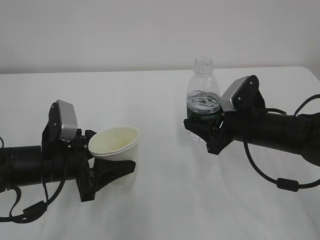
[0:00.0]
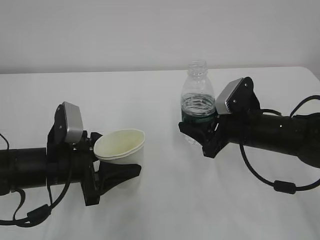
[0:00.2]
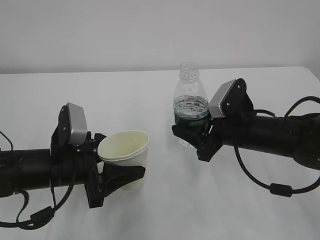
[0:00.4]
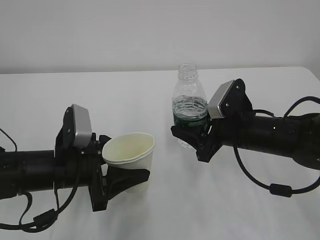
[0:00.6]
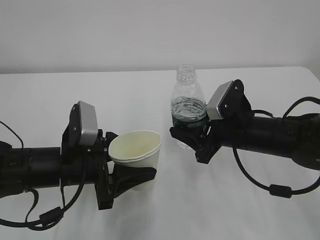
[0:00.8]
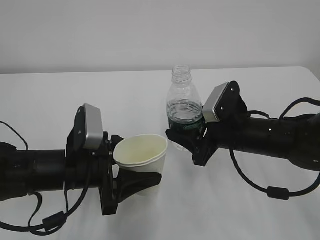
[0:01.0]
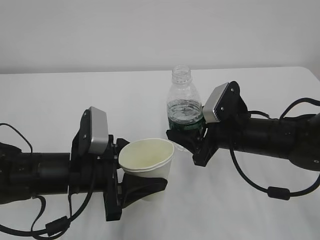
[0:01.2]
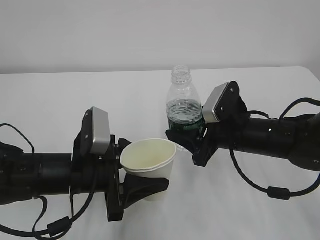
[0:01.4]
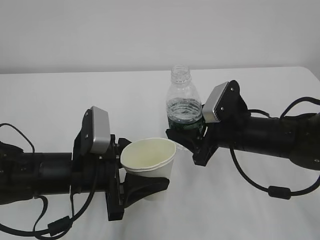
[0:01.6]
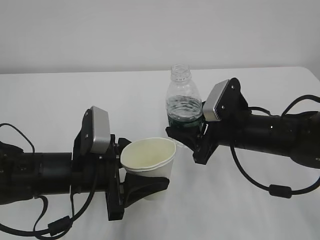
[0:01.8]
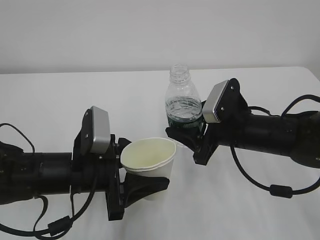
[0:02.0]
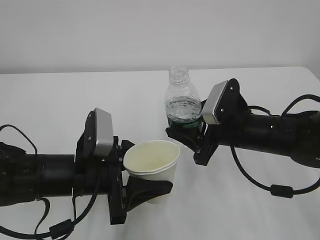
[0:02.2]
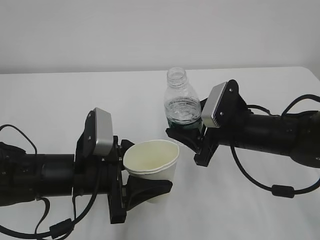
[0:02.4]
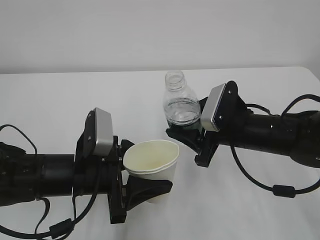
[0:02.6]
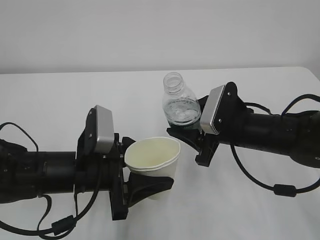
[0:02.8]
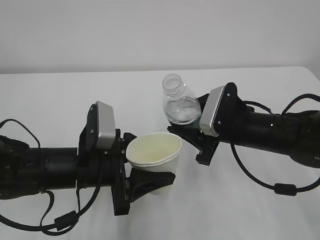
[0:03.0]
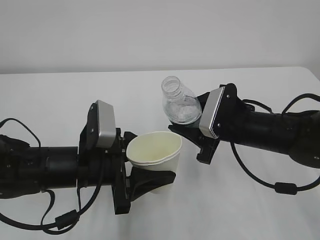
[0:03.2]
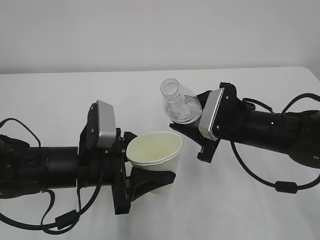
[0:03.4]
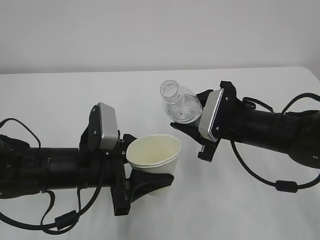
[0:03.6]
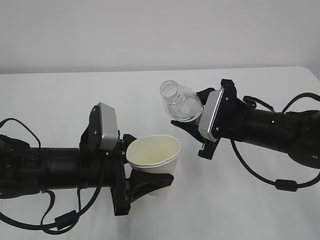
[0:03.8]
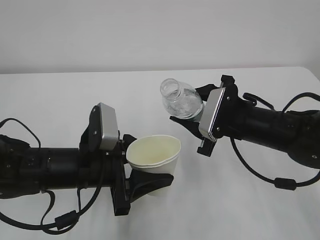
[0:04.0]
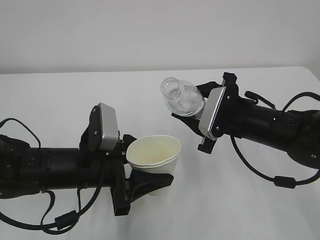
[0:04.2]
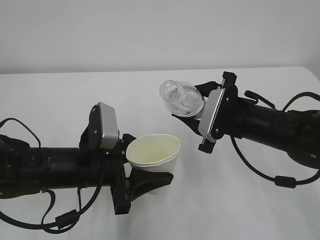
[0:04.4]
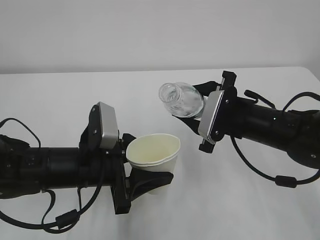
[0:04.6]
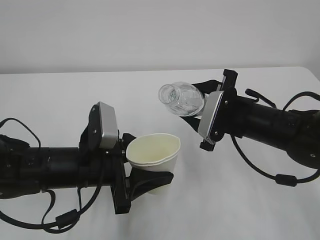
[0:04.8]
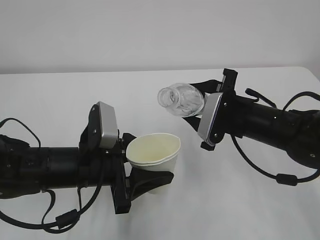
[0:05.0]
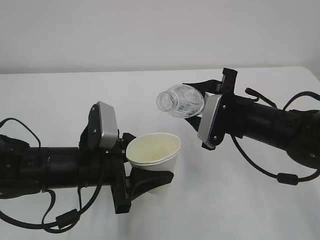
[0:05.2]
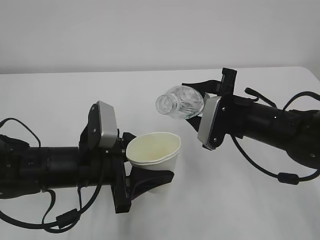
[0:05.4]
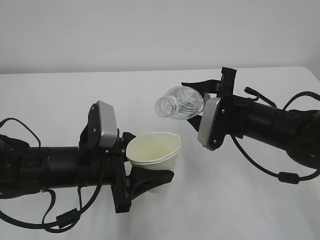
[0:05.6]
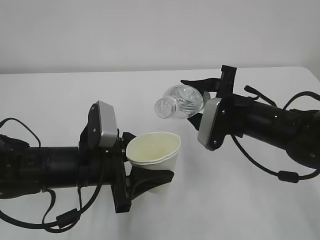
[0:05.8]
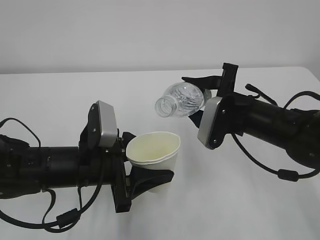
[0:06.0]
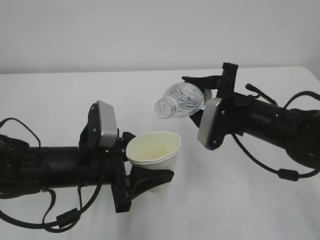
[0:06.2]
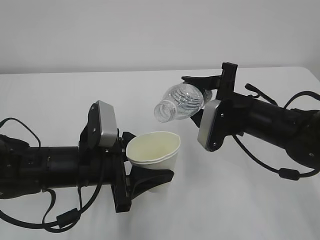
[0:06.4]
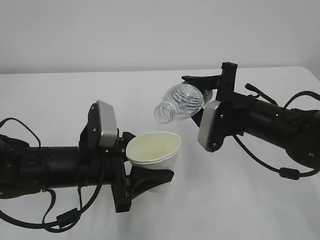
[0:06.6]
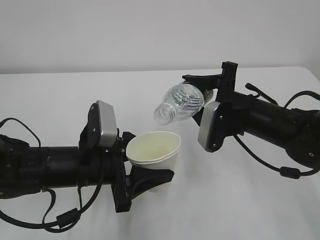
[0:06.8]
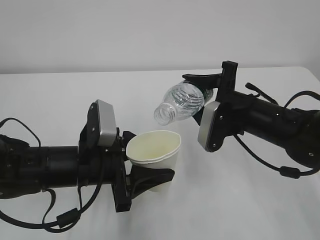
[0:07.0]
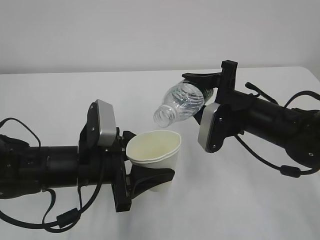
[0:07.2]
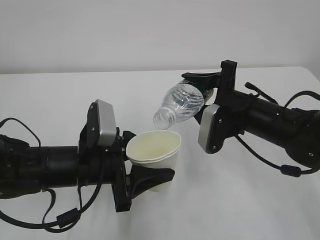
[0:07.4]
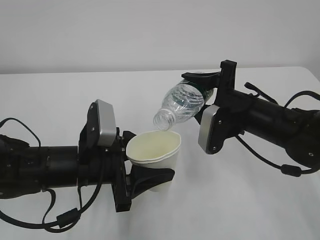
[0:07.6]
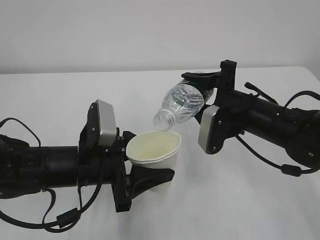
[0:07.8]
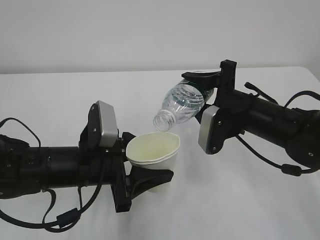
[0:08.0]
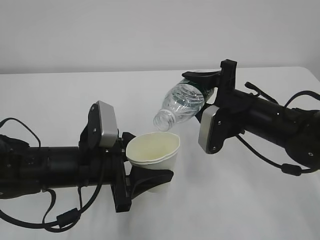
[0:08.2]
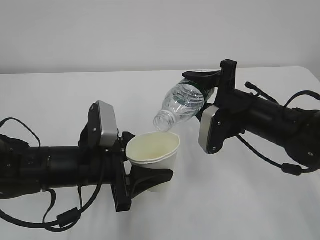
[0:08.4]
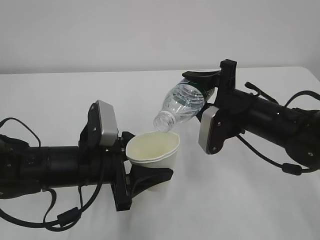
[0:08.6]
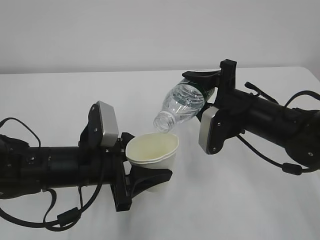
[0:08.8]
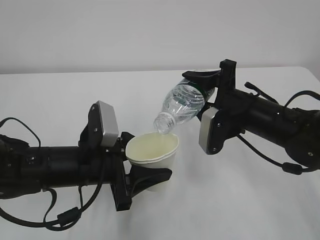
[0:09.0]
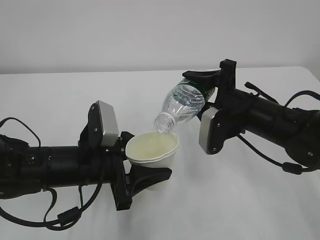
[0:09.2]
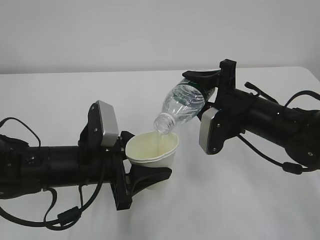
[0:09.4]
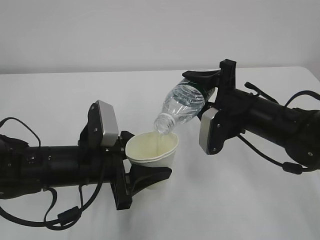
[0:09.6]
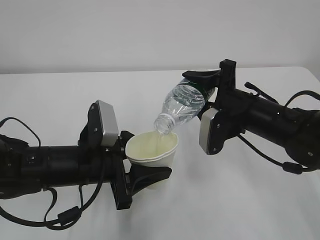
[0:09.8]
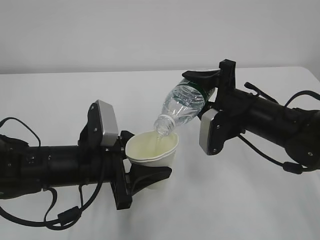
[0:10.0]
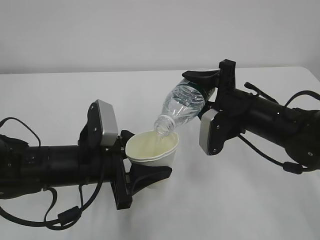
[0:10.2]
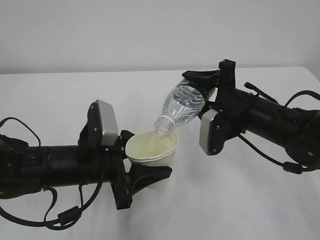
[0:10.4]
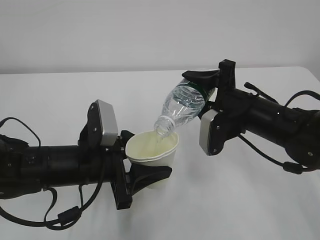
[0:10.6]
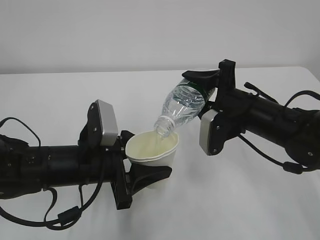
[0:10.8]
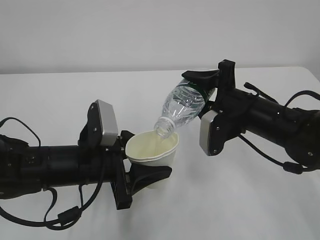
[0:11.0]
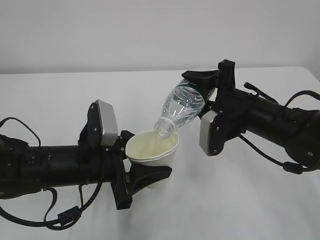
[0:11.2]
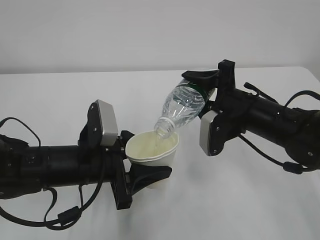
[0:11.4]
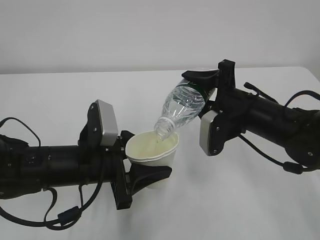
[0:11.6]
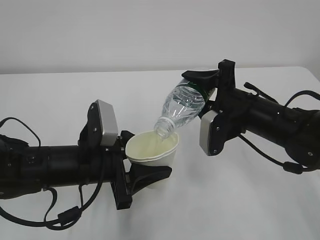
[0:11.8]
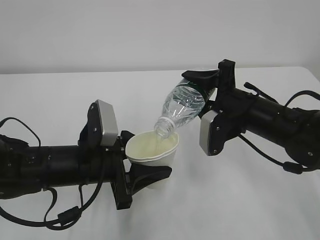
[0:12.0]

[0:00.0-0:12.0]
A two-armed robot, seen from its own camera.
0:00.0 to 0:01.6: The left gripper moves to the right, some 5 cm.
0:01.6 to 0:03.0: The grippers move only a little.
0:03.0 to 0:04.4: The grippers move only a little.
0:04.4 to 0:06.0: The grippers make only small movements.
0:06.0 to 0:09.0: There are only small adjustments of the grippers.
0:09.0 to 0:12.0: Both grippers stay put.

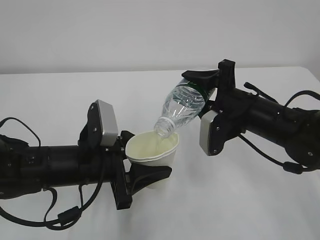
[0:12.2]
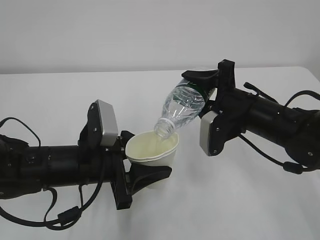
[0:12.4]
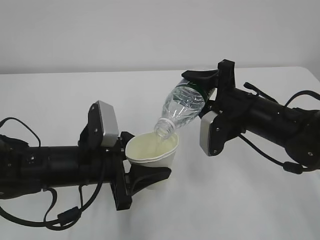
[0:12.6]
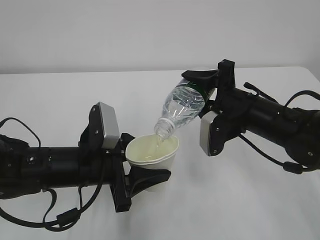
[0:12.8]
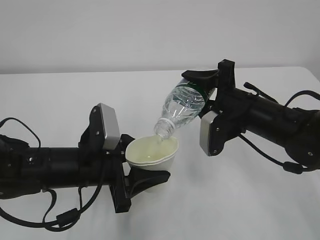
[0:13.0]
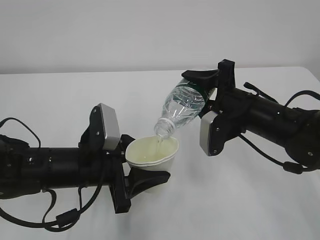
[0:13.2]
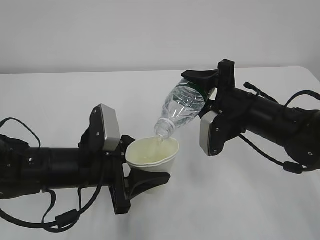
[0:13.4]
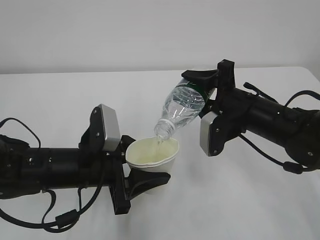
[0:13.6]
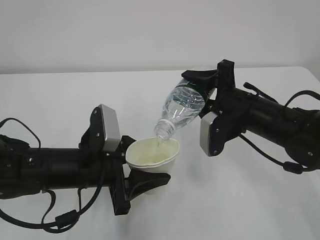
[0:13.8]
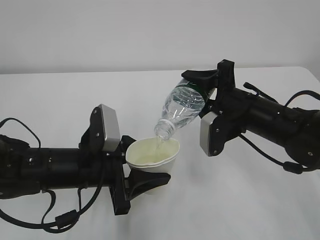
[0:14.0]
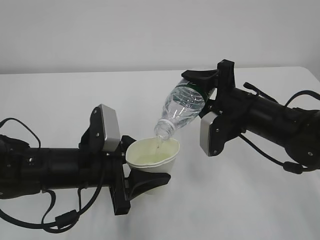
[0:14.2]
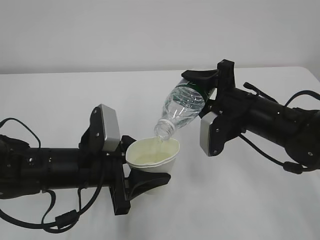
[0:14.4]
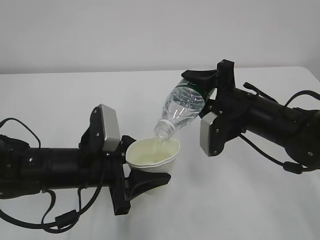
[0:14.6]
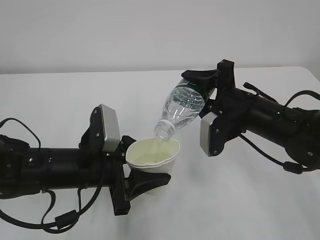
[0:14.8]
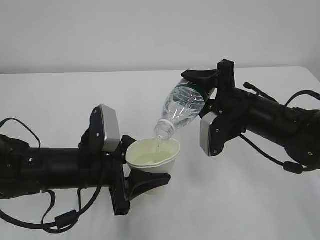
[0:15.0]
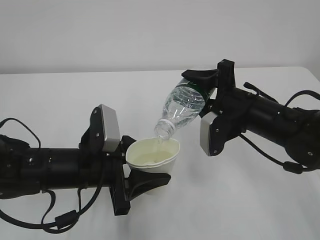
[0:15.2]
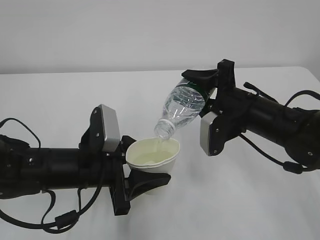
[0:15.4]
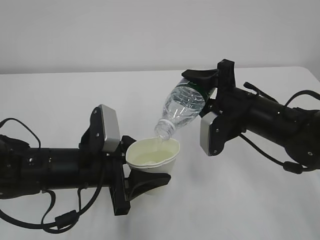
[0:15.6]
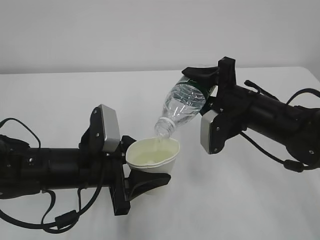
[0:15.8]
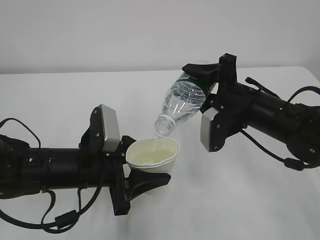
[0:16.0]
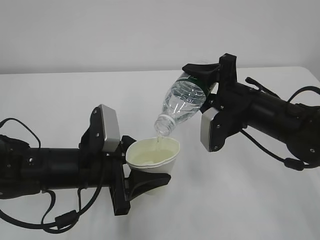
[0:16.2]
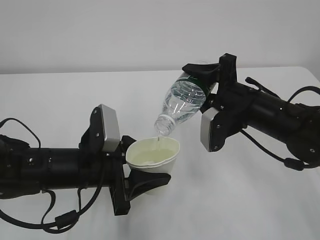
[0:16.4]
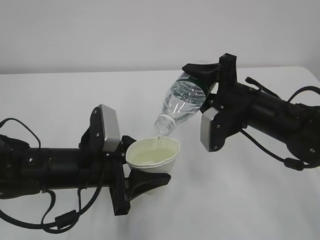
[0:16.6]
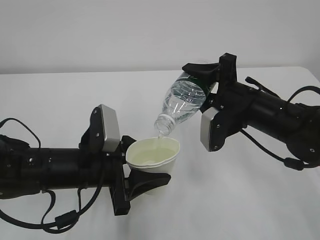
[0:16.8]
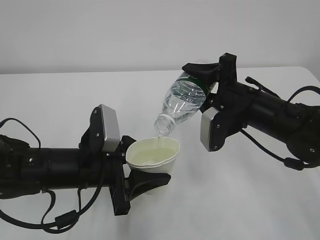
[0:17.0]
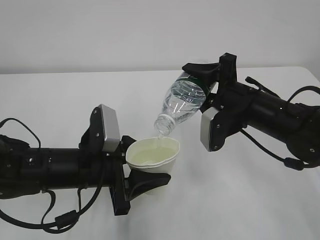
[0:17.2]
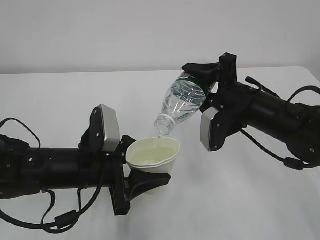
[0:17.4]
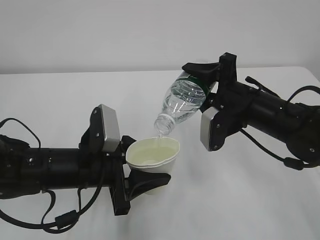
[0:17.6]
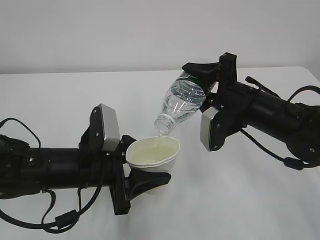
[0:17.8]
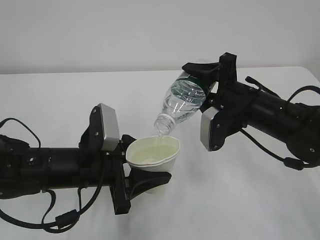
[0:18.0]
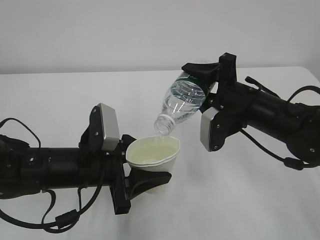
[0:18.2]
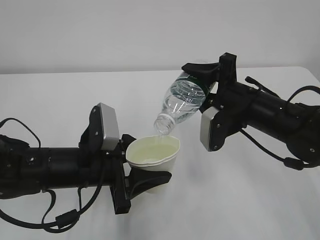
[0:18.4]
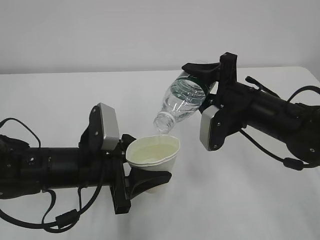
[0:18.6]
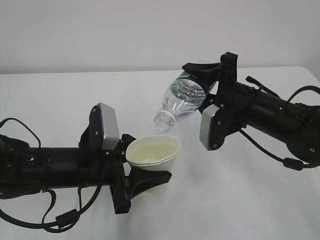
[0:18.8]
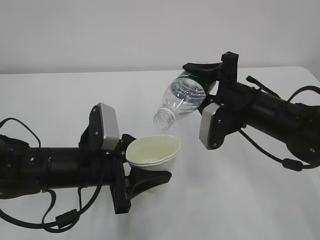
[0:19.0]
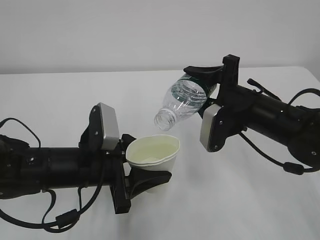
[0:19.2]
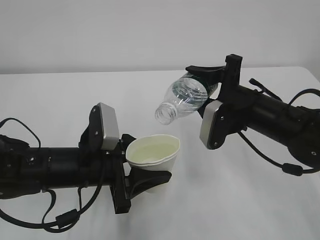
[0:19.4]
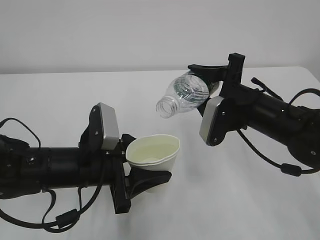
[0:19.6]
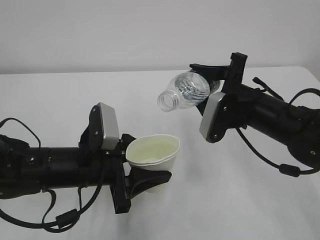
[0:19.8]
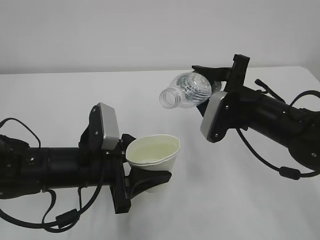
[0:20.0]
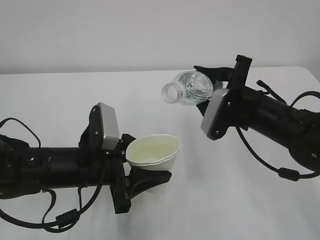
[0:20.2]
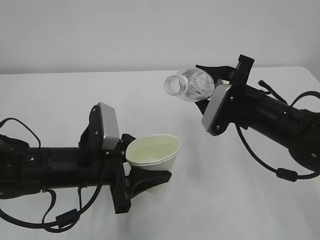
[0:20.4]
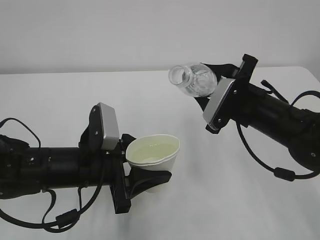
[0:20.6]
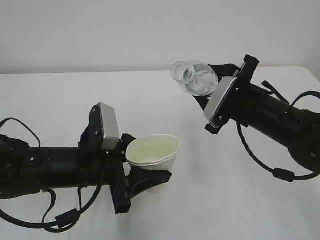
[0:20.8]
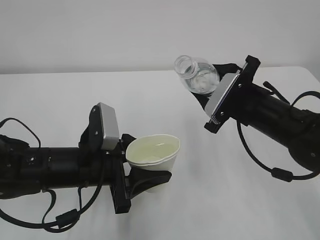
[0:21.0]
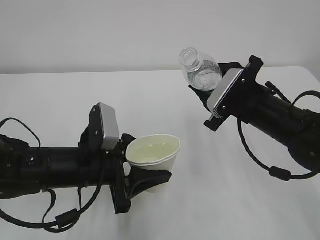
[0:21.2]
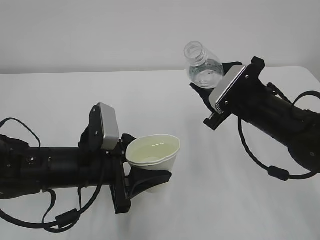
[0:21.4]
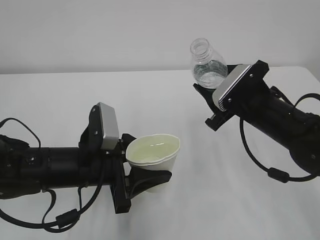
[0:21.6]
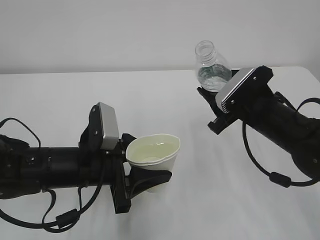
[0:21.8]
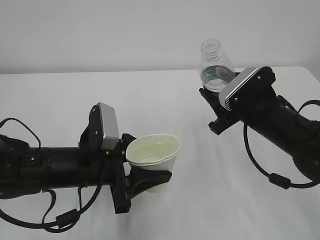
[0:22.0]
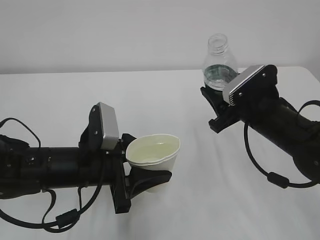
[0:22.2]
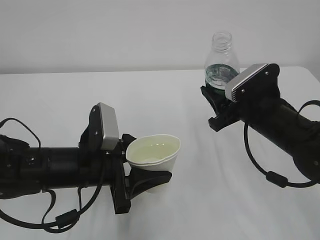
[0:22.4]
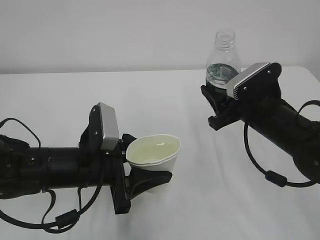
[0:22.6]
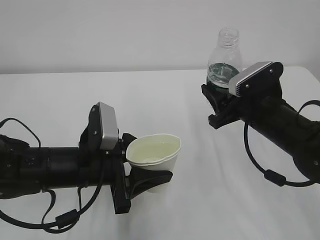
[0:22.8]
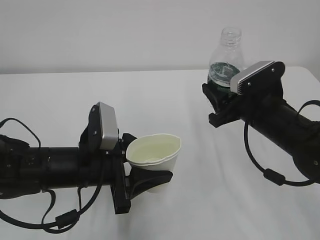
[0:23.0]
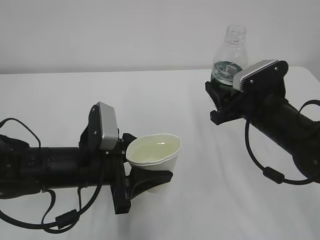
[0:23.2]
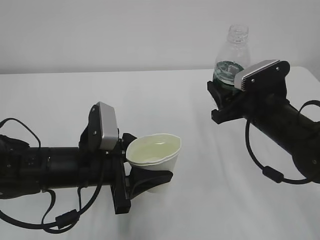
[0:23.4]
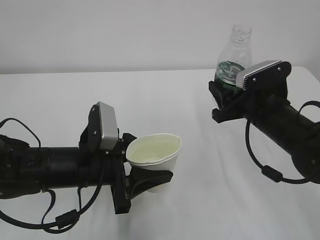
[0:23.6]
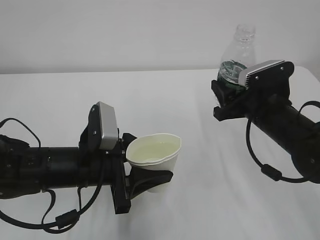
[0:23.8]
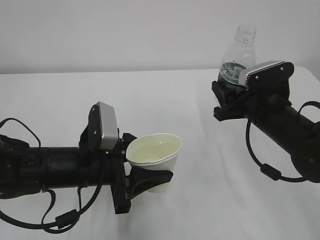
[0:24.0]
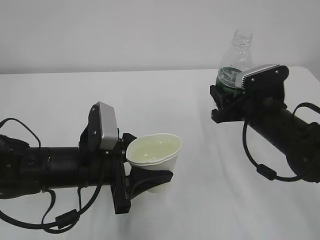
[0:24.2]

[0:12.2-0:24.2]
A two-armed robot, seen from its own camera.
0:12.2 to 0:18.2: Both grippers stay about where they are.
0:22.6 to 0:24.2: The grippers stay close to where they were, moving slightly.
